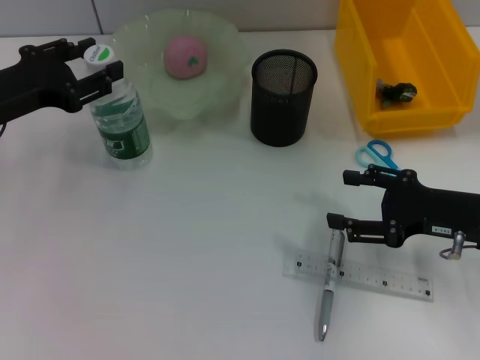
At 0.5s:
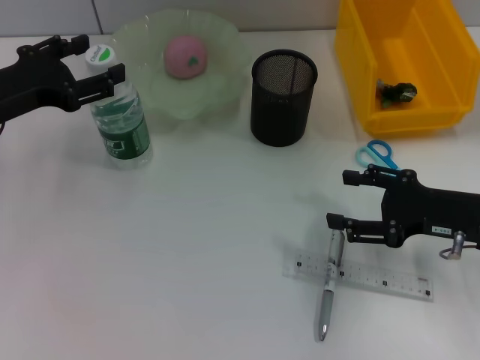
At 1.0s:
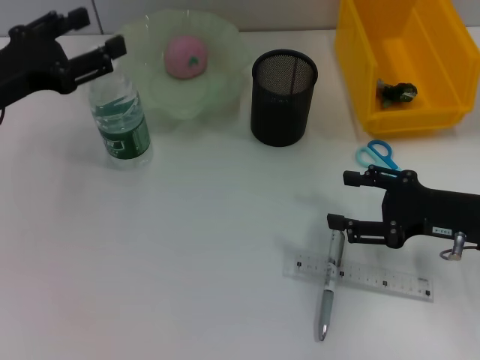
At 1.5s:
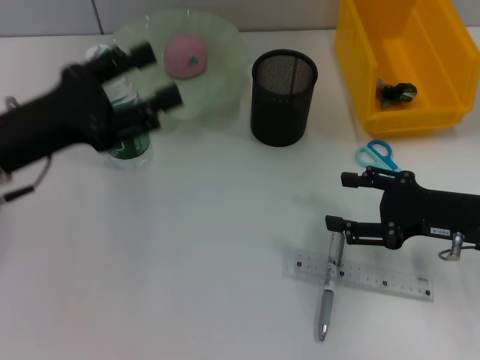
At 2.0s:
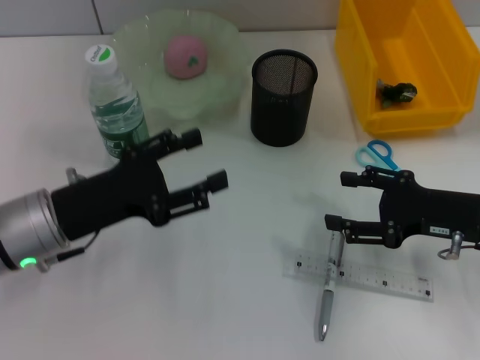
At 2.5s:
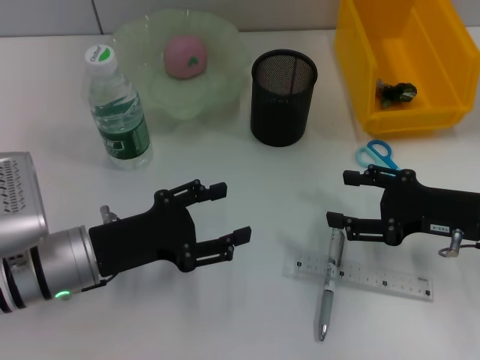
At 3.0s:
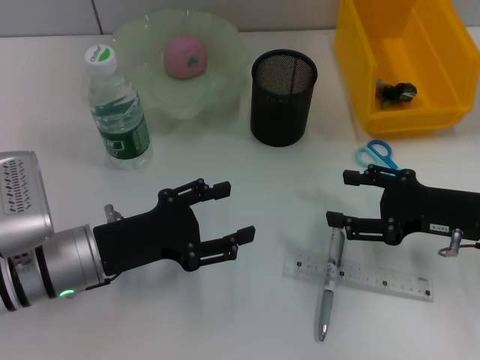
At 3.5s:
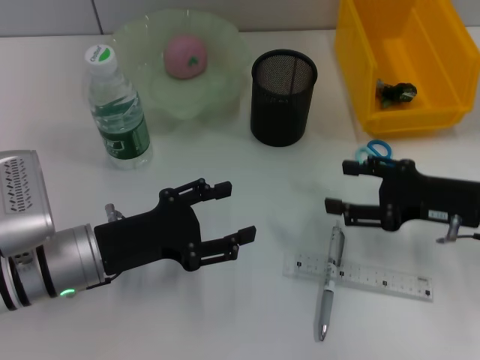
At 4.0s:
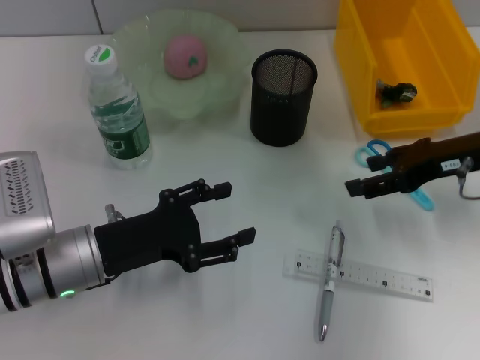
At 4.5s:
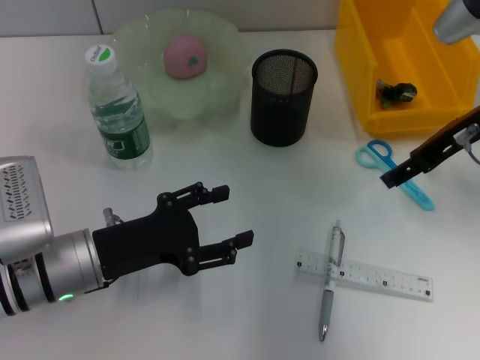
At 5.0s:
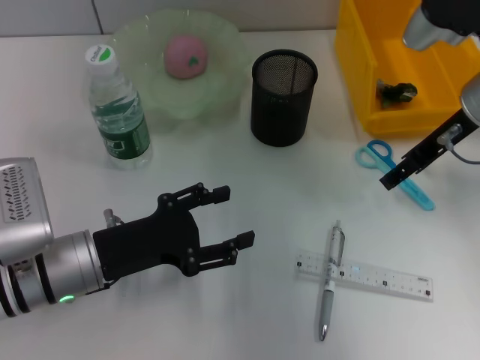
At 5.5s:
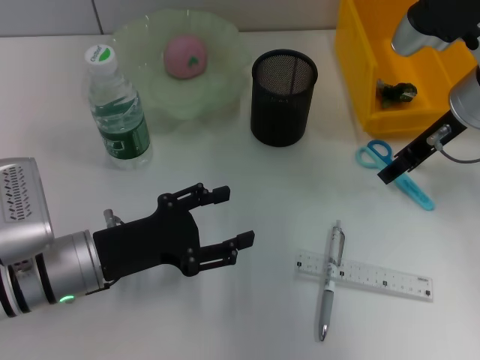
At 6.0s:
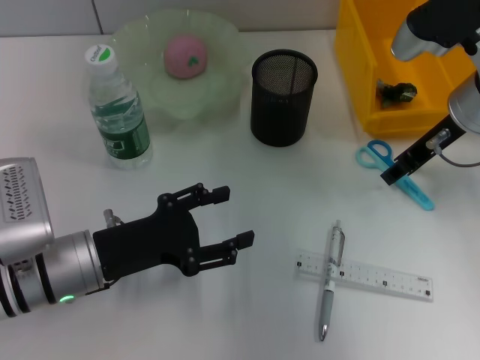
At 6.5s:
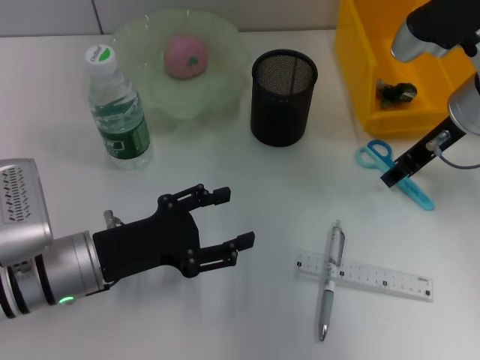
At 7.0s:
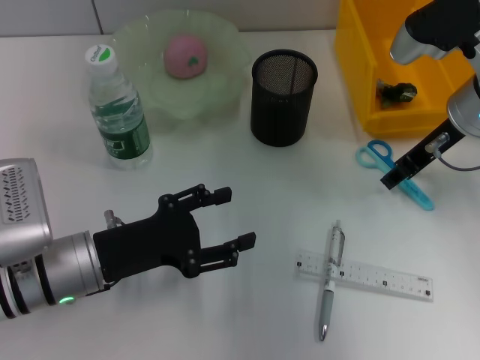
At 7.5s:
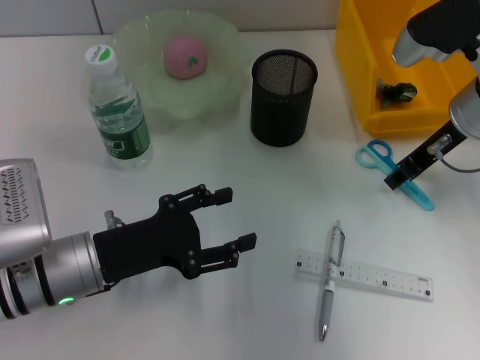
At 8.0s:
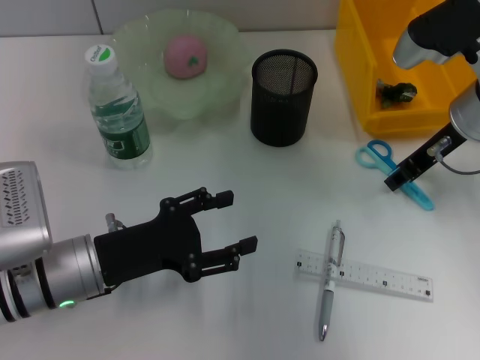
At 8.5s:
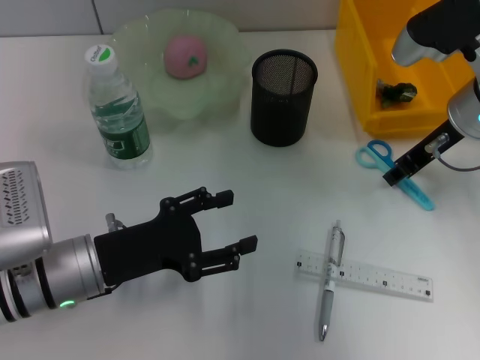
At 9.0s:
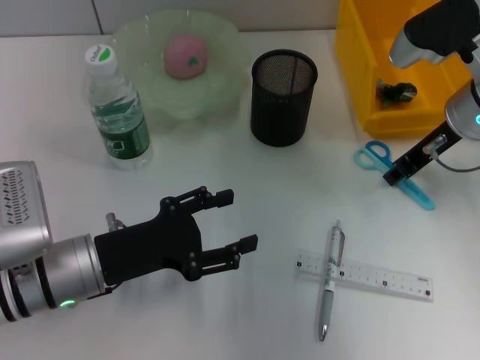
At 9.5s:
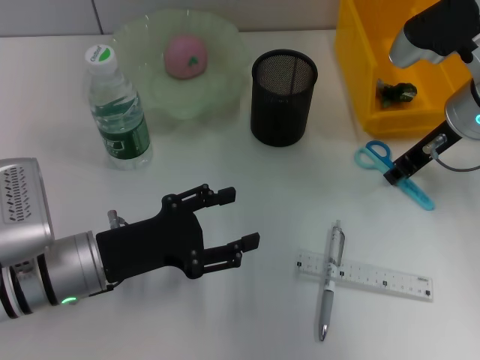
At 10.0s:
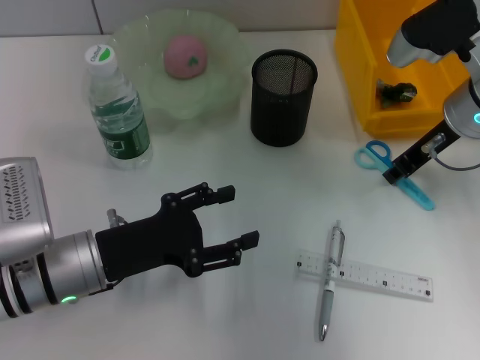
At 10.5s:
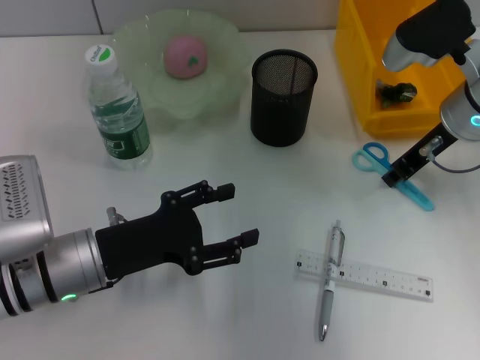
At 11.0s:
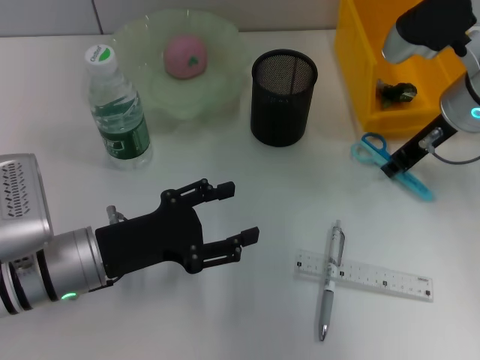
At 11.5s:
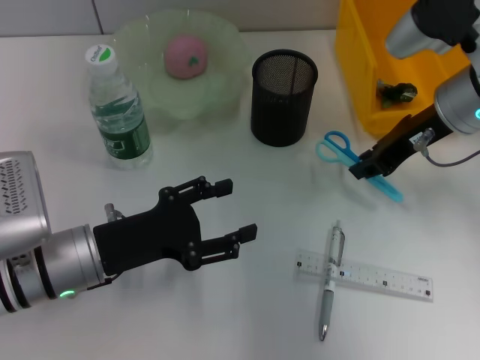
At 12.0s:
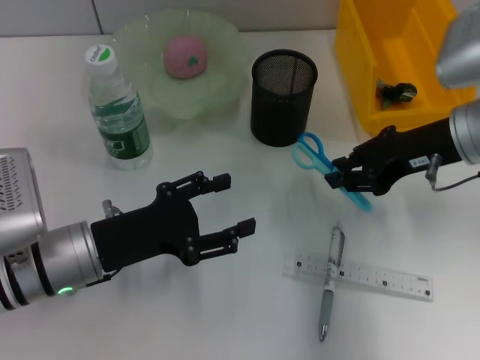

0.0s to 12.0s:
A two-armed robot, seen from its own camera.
Step, 0.5s to 9.5s: Grab the blue scissors with the right hand.
0.0s to 2.0s: The left gripper is displaced backward, to the right and downward by some 10 cm, and opens its fingers.
2.0s to 4.0s: The right gripper heads upward and forward, covering some 10 cm.
4.0s to 6.0s: The right gripper moves about 5 cm, and closes up.
6.0s to 10.0s: Both grippers stay about where they are.

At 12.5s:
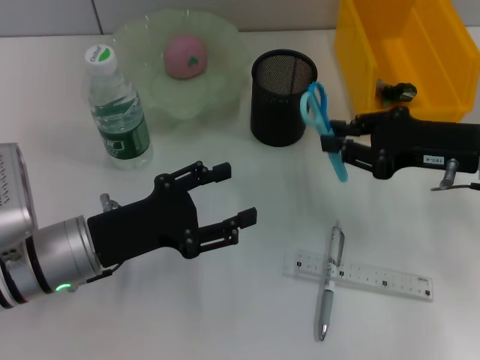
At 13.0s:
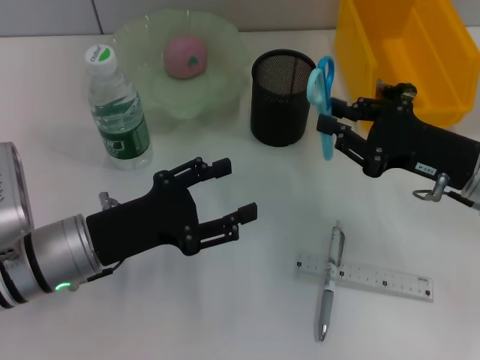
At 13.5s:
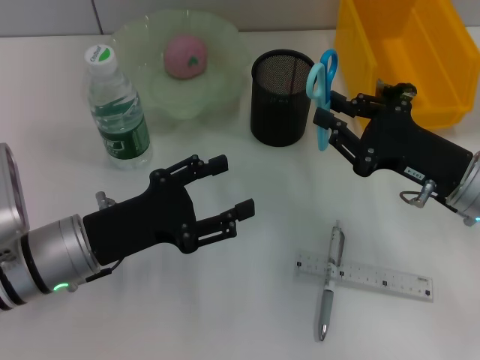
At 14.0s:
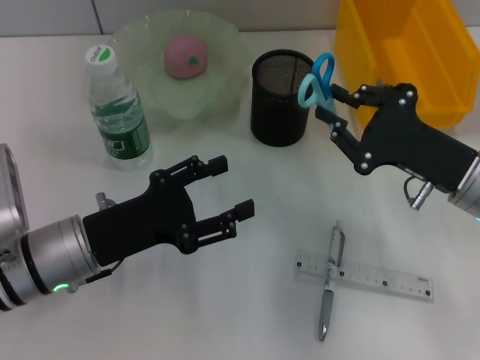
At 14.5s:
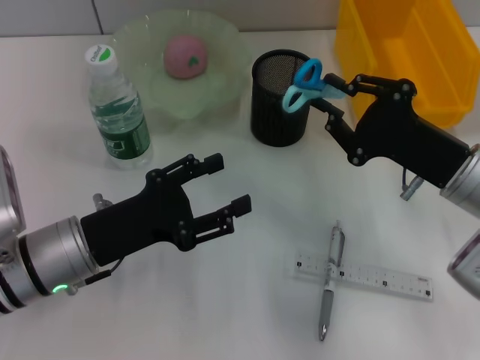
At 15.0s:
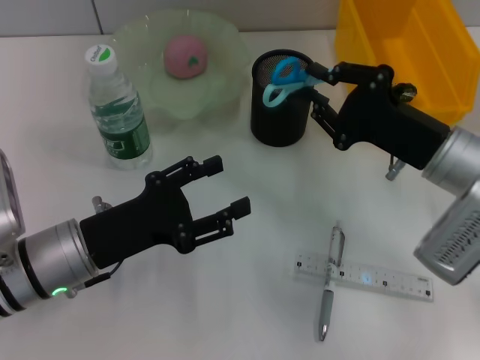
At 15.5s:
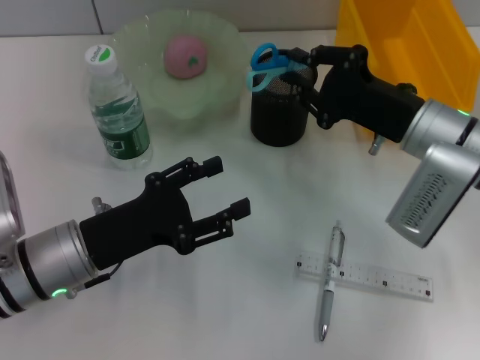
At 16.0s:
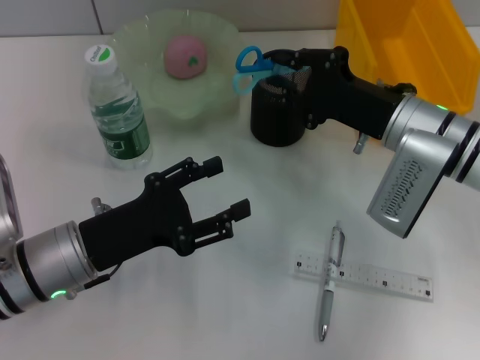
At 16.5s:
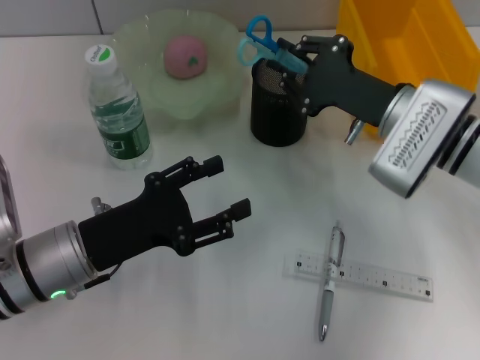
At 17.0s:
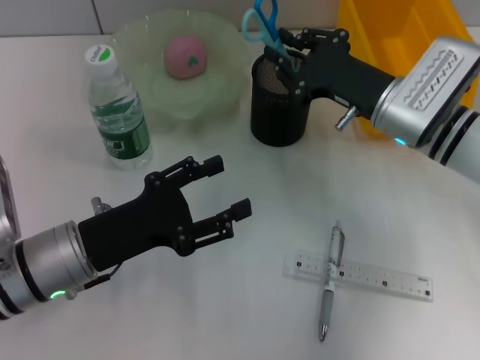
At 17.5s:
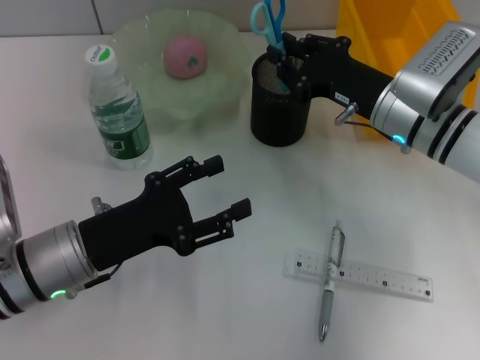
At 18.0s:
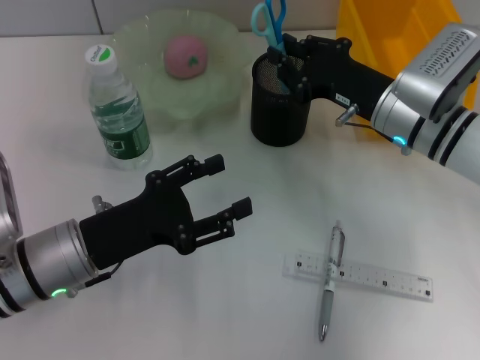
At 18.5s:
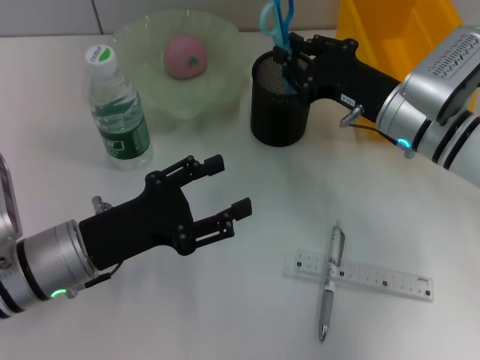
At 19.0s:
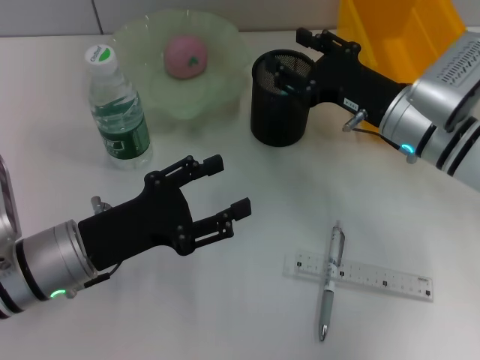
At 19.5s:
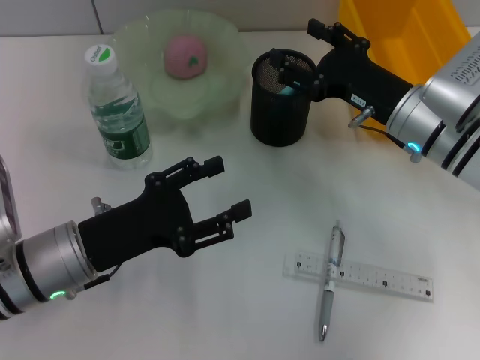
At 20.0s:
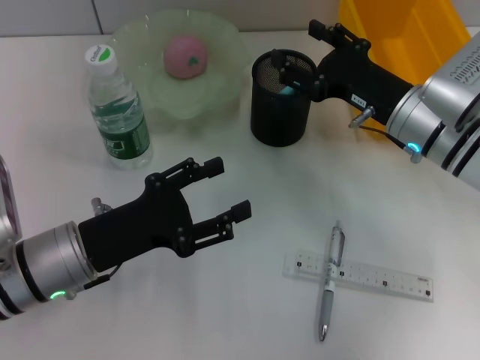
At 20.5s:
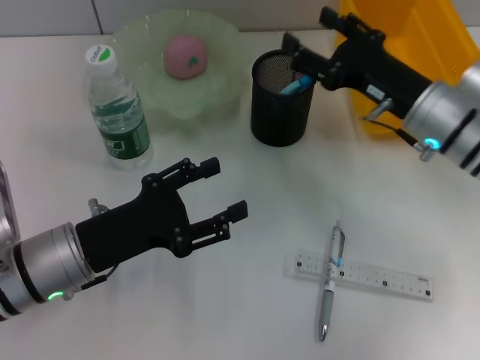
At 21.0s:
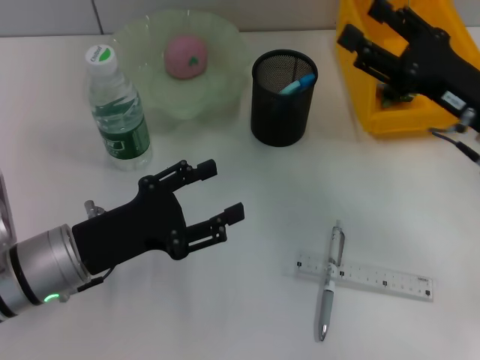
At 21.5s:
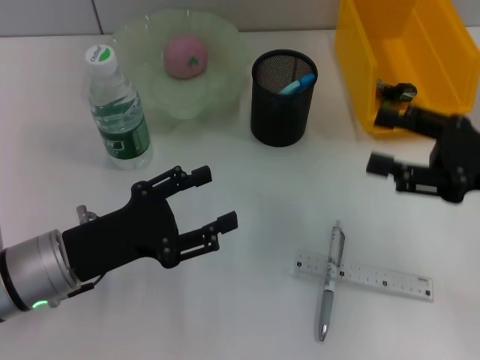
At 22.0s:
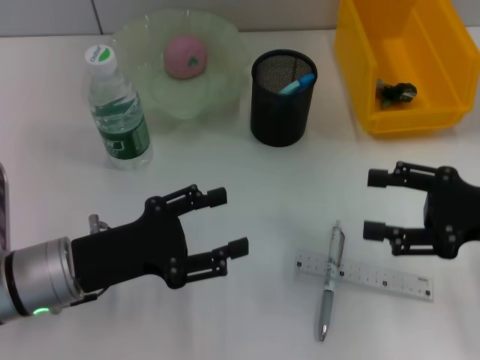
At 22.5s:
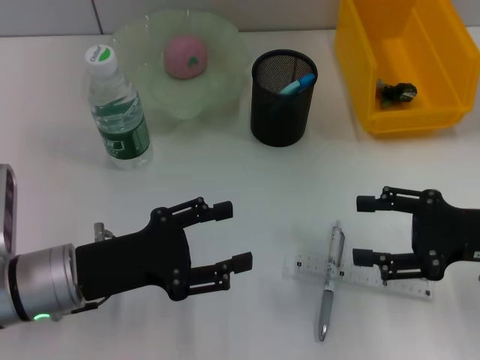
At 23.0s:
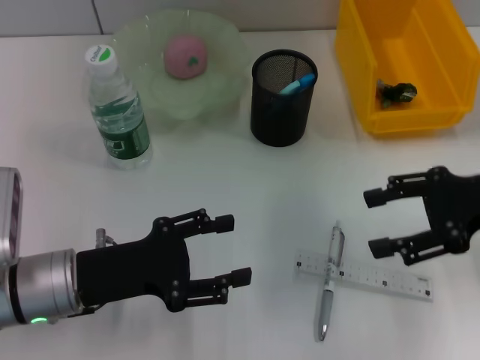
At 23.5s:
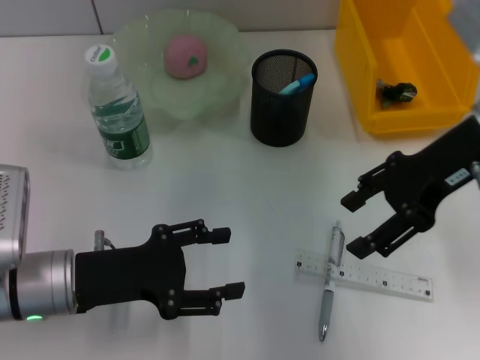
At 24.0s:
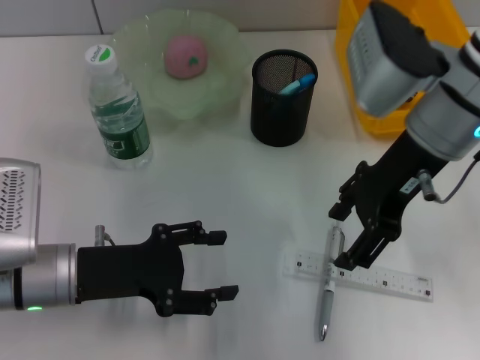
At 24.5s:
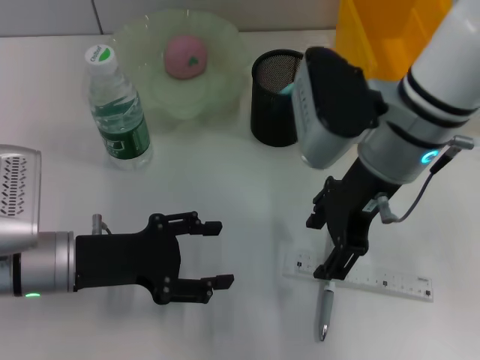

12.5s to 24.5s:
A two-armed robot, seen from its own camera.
Step, 12.5s to 20.0s: Place the blue scissors into the pen holder with the right hand.
12.5s to 14.5s: The right gripper shifts by approximately 5 cm.
14.5s to 16.5s: The right gripper moves forward, some 5 cm.
18.5s to 20.5s: The right gripper opens up.
20.5s to 22.5s: The right gripper shifts about 15 cm backward and to the right.
22.5s to 24.5s: The right gripper shifts about 20 cm to the left, upward and forward.

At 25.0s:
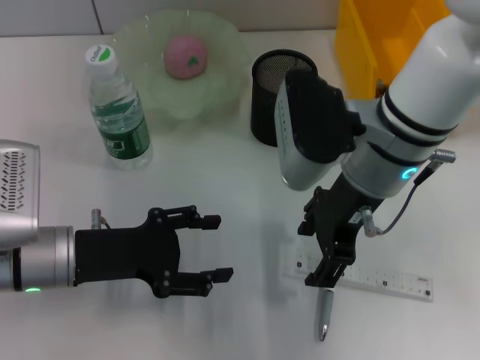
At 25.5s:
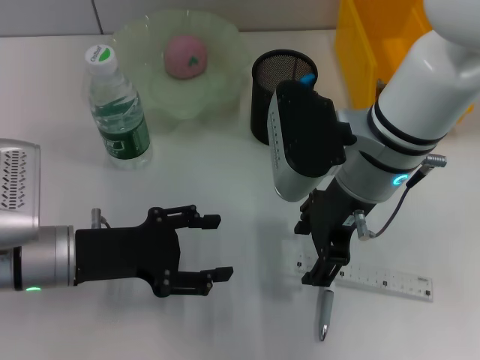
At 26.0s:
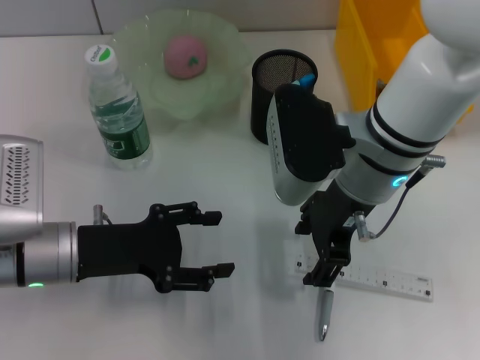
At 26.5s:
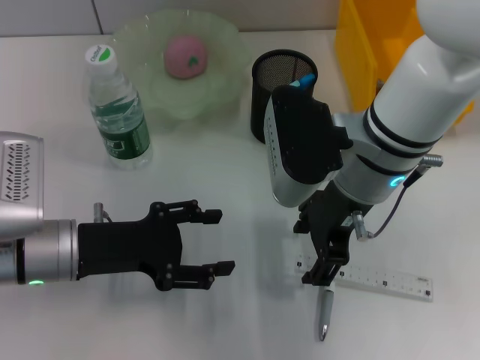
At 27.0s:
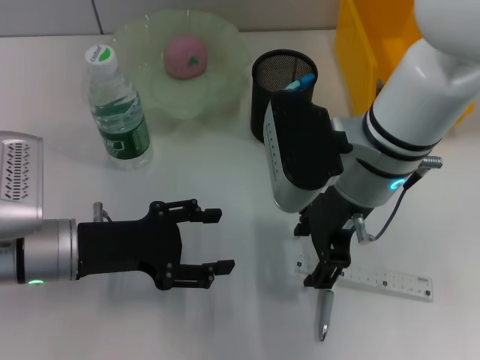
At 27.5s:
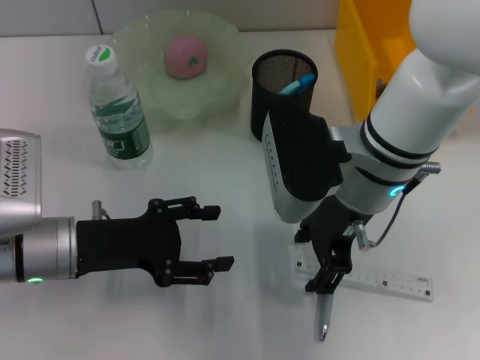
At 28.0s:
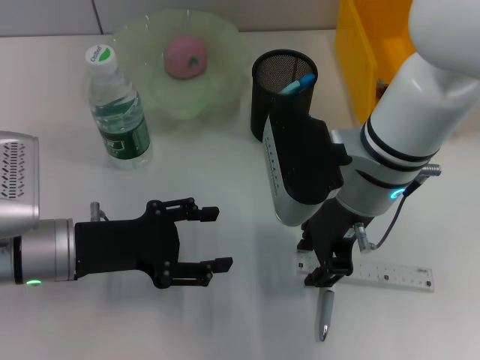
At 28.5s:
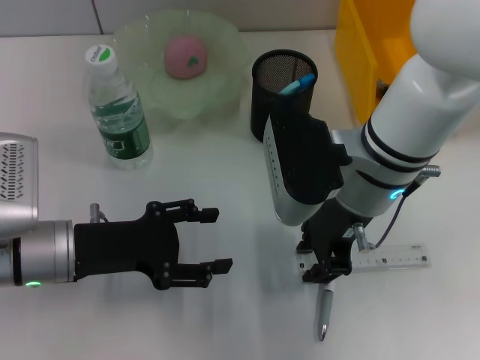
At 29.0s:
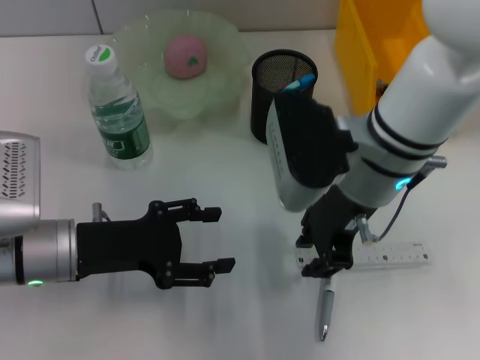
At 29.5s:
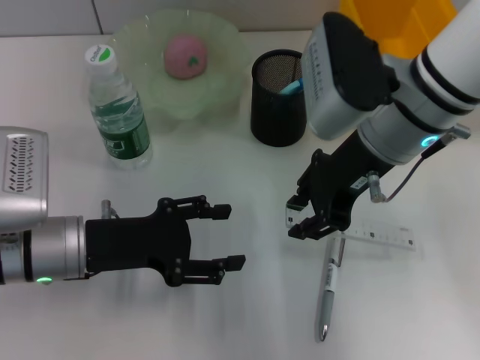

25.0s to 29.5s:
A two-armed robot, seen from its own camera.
Step, 25.0s to 28.0s: Grab the ruler with the right hand.
25.0s to 27.0s: The grippers make only small movements.
27.0s to 29.5s: The right gripper shifts by about 5 cm, and closes.
